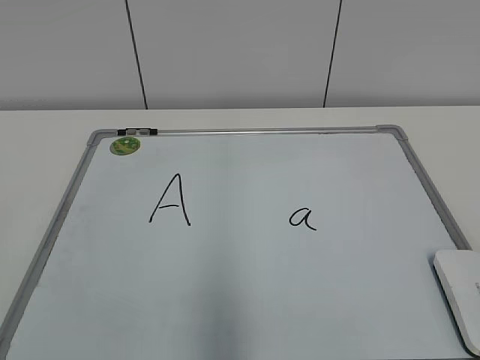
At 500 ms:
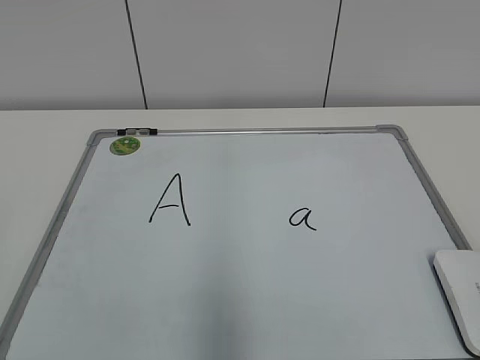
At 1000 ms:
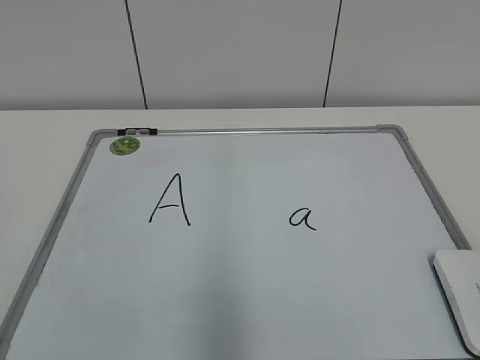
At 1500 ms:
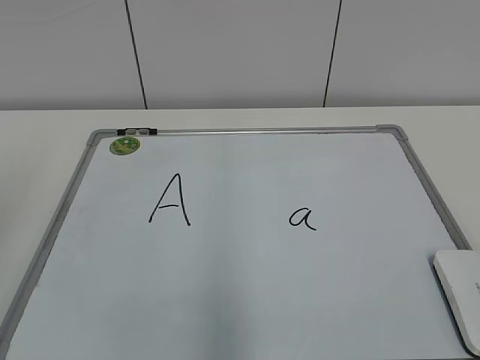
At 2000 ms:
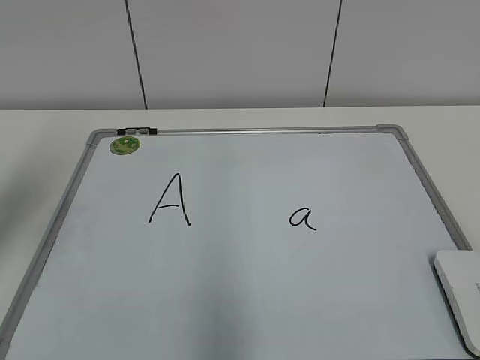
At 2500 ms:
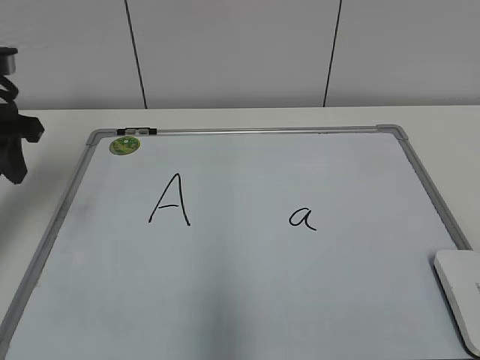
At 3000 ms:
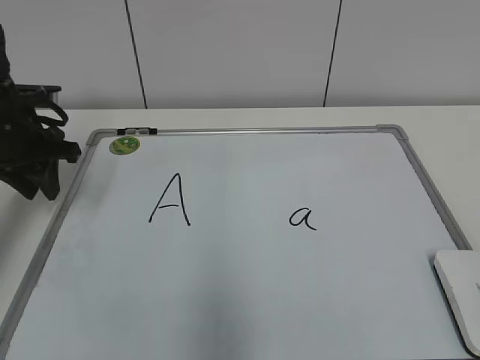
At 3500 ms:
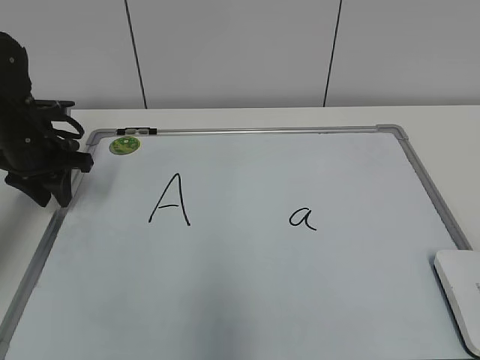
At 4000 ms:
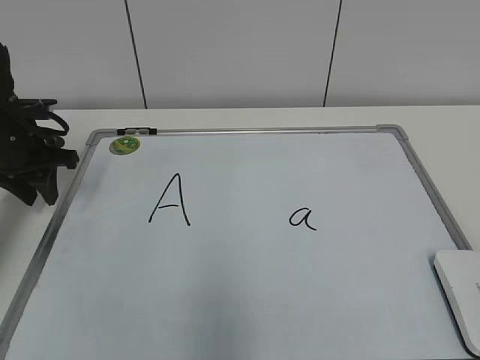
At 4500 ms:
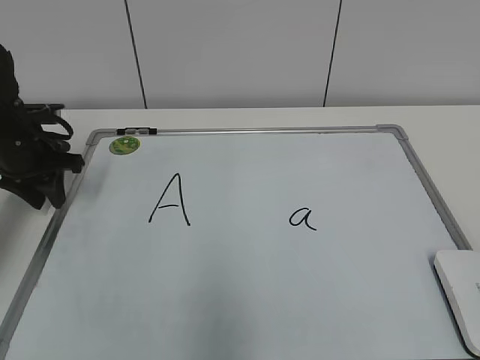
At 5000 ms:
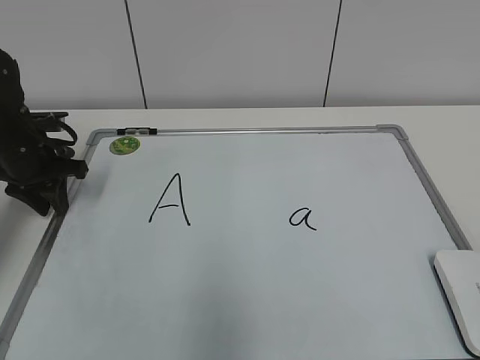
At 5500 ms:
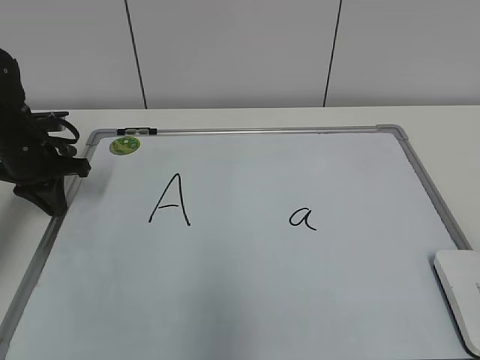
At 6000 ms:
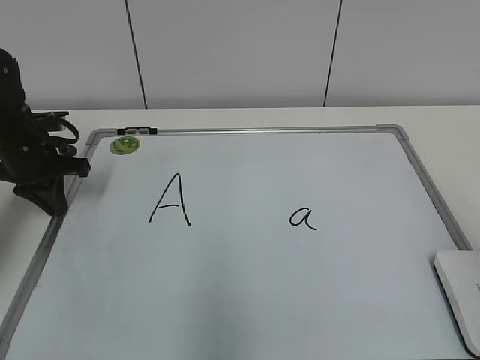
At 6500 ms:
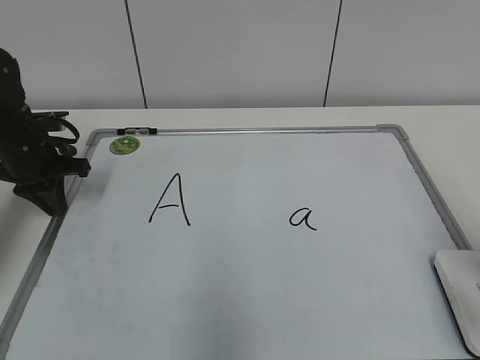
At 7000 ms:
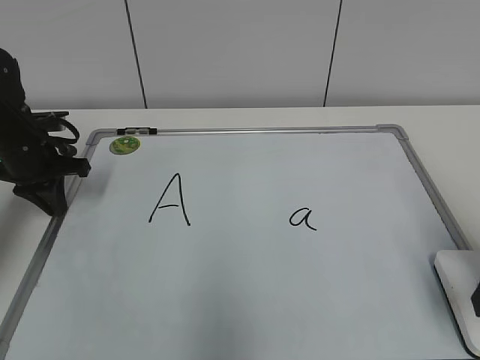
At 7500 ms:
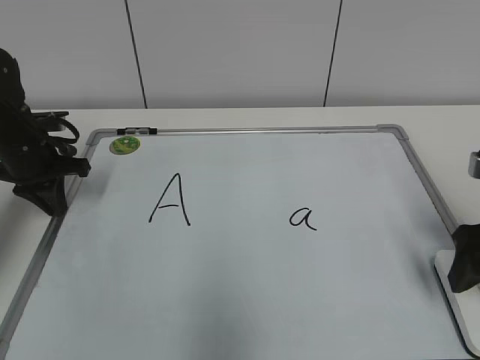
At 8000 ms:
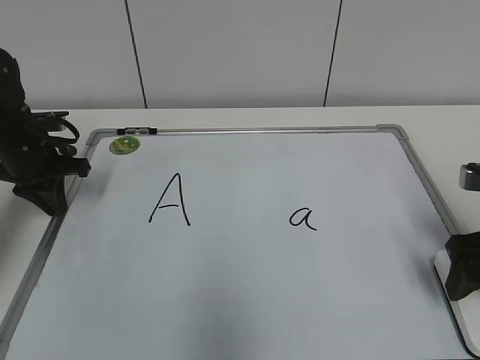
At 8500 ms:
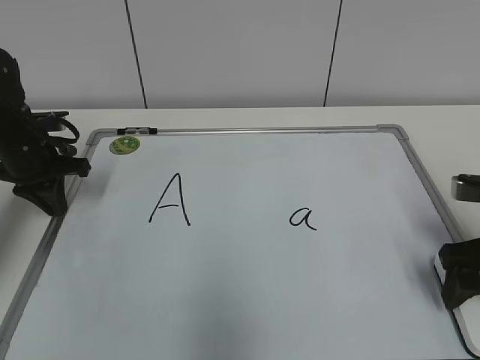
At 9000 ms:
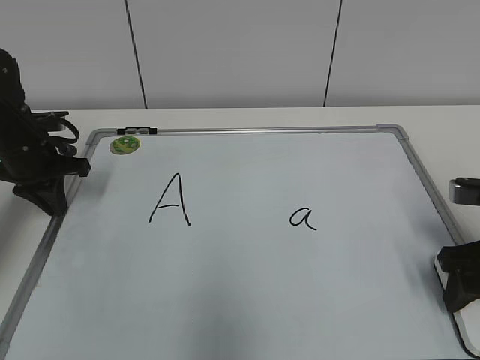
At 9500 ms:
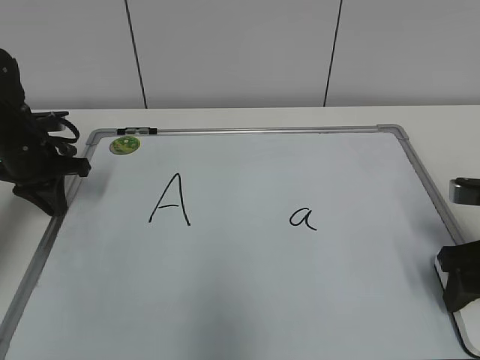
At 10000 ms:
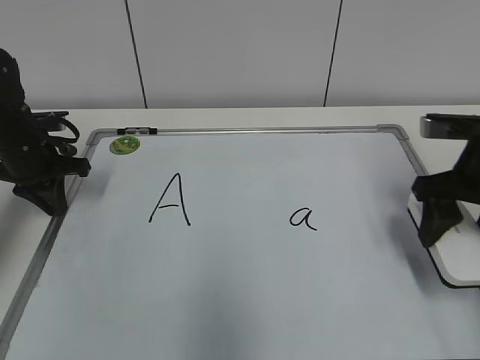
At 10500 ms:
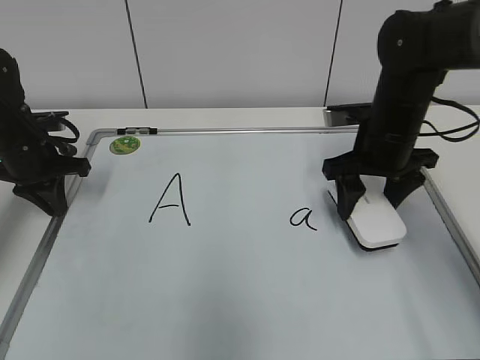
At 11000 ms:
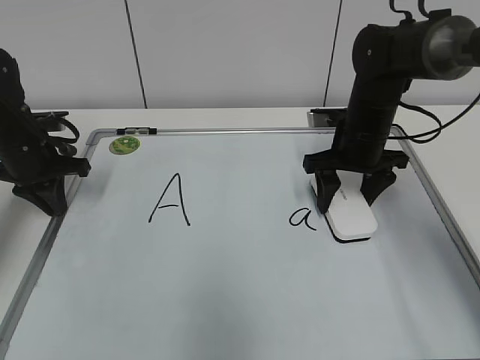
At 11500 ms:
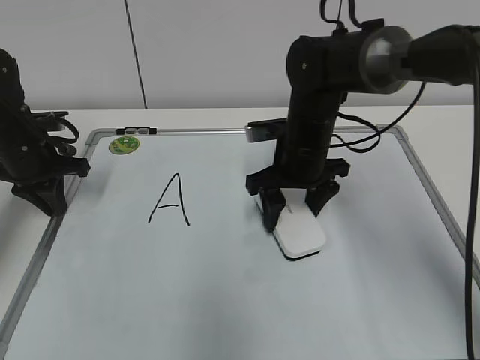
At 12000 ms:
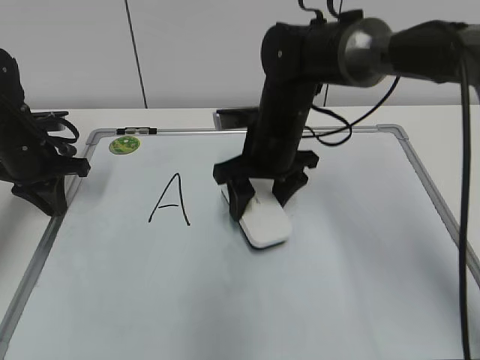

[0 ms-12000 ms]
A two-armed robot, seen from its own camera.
Task of the whole recording: pick up the eraser on the blackboard and erase the letter "a".
Step, 0 ms to 5000 ms: Hold the drawing board steady with your left hand.
Step, 5500 ms to 9000 ms: Grab the eraser with your right hand.
Step, 10000 ms to 11500 ms: Erase the letter a with your right hand.
2000 ms to 4000 ms: The left gripper goes roughly 20 cm downward and forward.
4000 ms to 6000 ms: The left gripper closes up.
6000 ms to 8000 ms: The right gripper heads forward and downward, covering roughly 20 cm, and opens up.
8000 ms to 10000 ms: The right gripper shifts about 5 cm forward, and closes.
10000 ms to 12000 ms: The right gripper goes approximately 20 cm to the left and forward.

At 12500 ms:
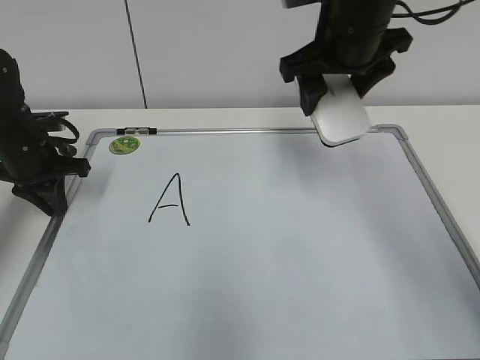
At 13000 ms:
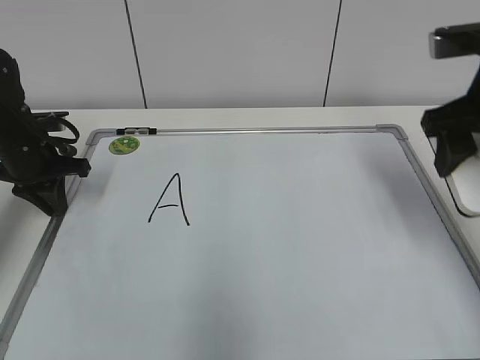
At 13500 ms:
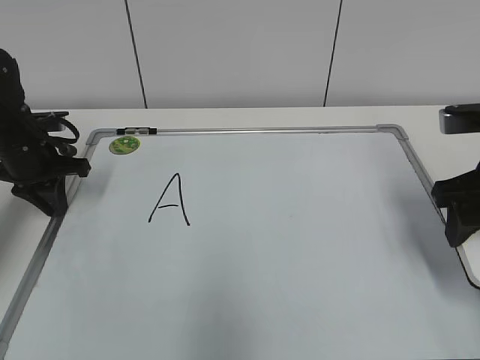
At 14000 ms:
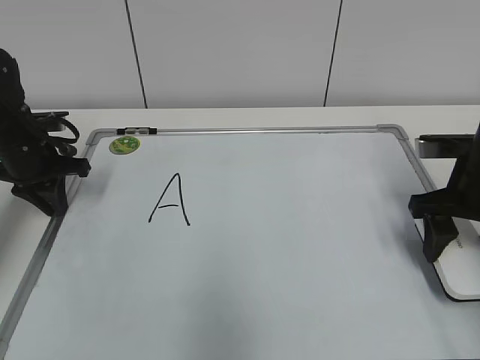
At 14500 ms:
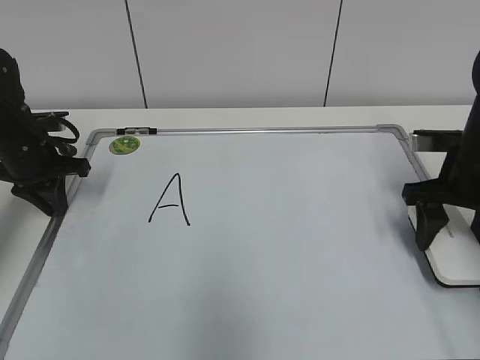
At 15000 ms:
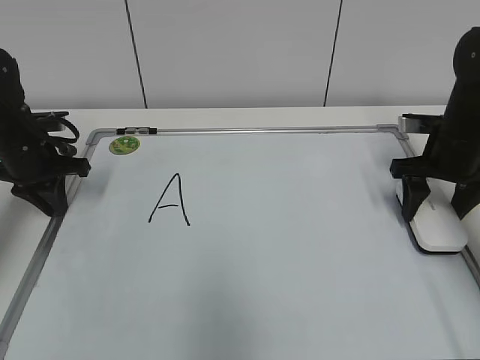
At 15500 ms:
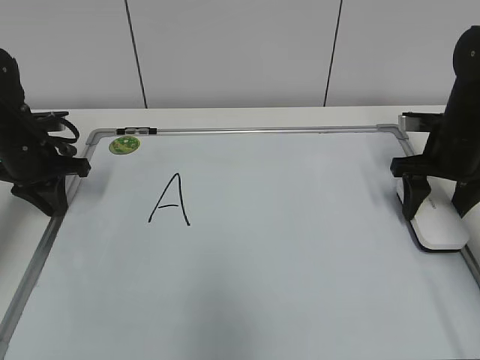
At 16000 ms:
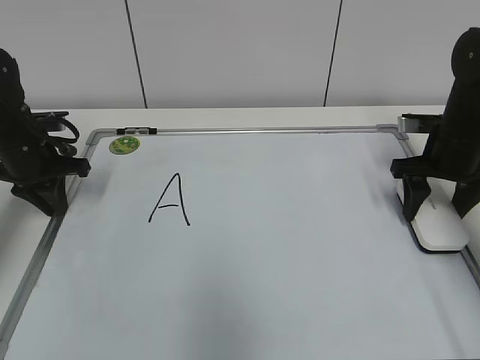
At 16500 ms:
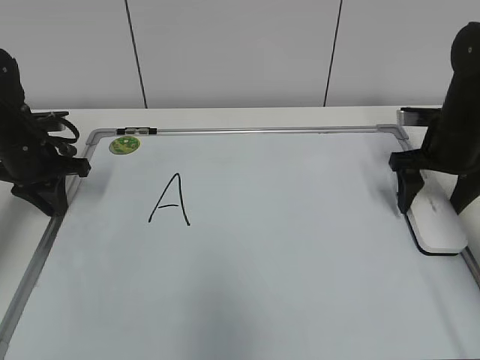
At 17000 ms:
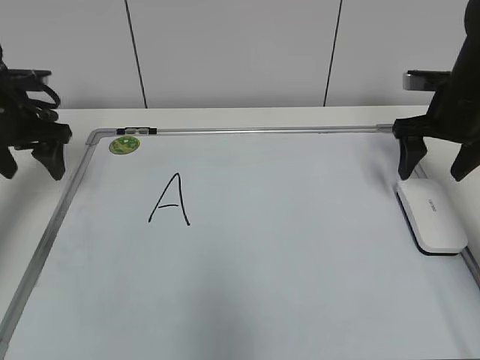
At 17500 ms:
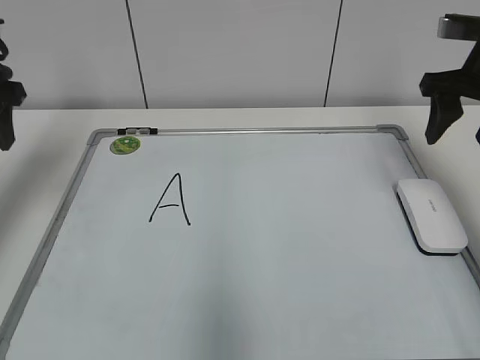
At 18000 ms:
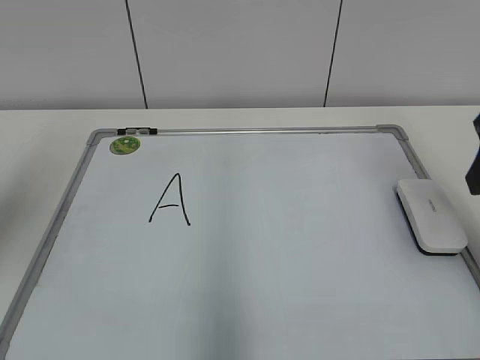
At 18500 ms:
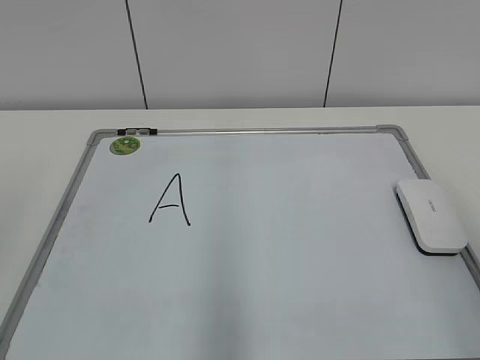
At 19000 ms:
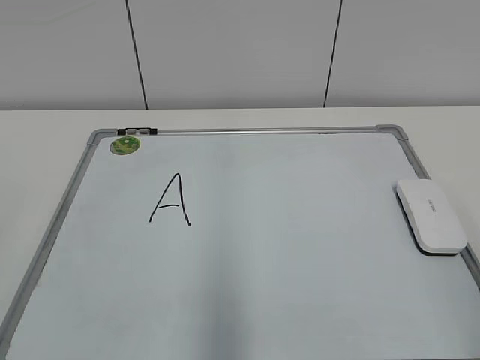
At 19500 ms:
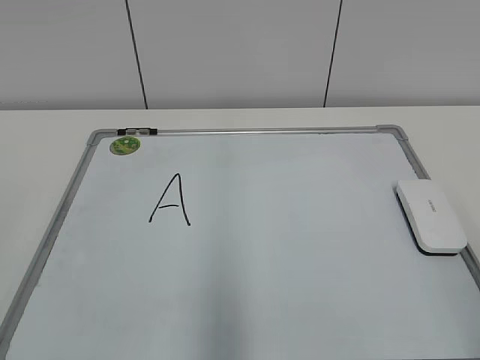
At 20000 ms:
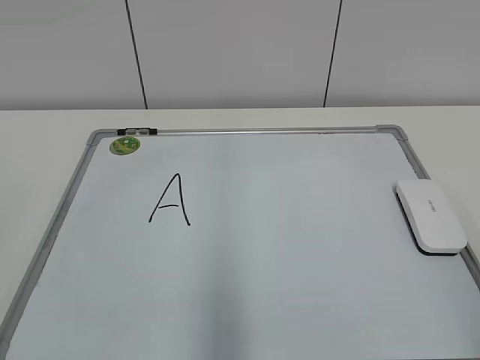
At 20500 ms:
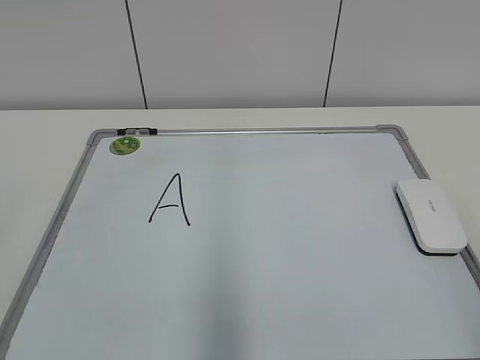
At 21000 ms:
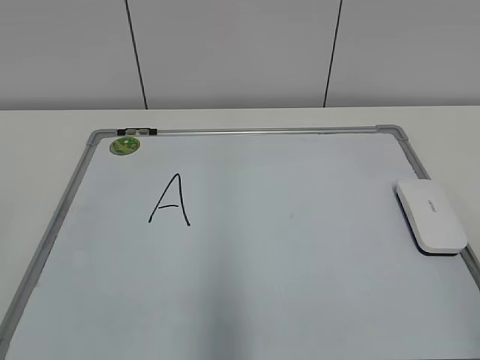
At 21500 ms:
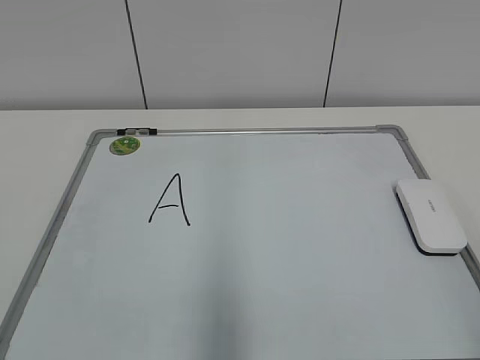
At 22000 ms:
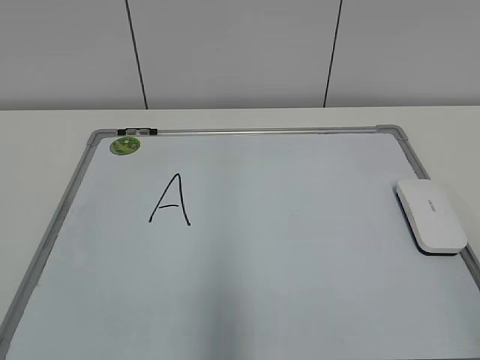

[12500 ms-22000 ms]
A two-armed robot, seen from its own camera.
Task of the whole recording: pick up the eraser on the blackboard and erase the letter "a".
Step, 12500 ms to 16000 ms: Put down the eraser with your right hand.
12500 ms to 14500 ms: The right gripper is displaced to the right and downward by roughly 20 cm.
14500 ms to 16500 ms: The right gripper shifts some 5 cm forward, and opens up.
16500 ms to 18000 ms: The right gripper shifts about 20 cm backward and upward, and closes up. Meanwhile the left gripper moves upward and backward, about 25 cm, and opens up.
18000 ms to 20000 ms: The two grippers go about 20 cm backward.

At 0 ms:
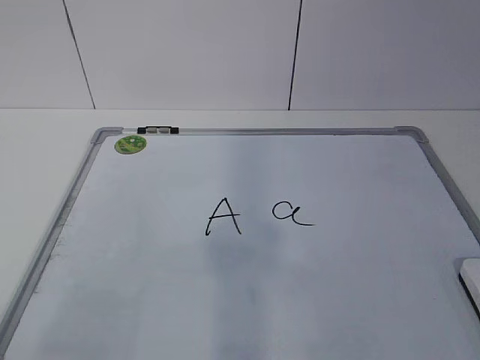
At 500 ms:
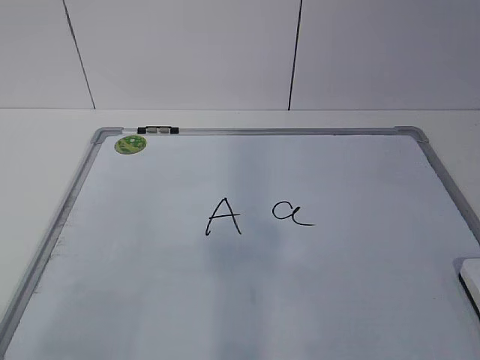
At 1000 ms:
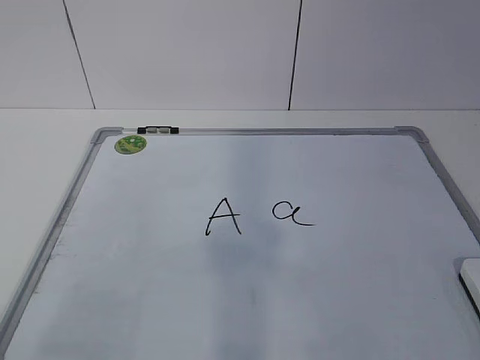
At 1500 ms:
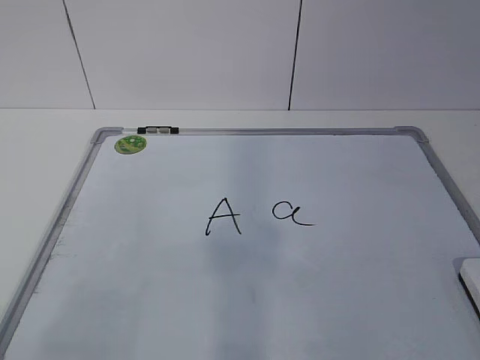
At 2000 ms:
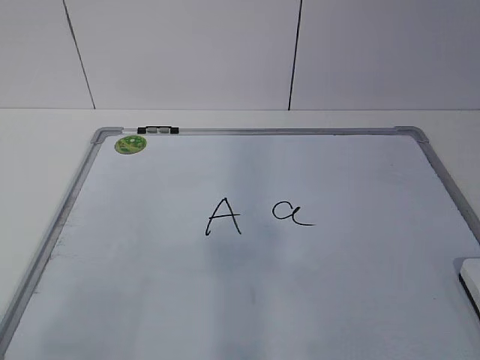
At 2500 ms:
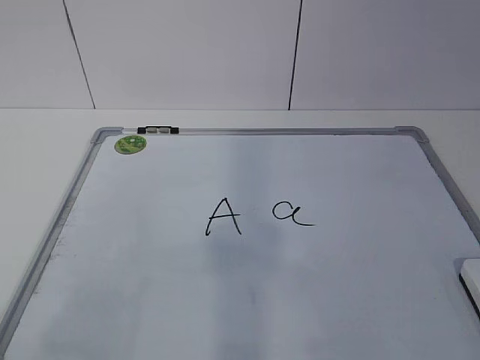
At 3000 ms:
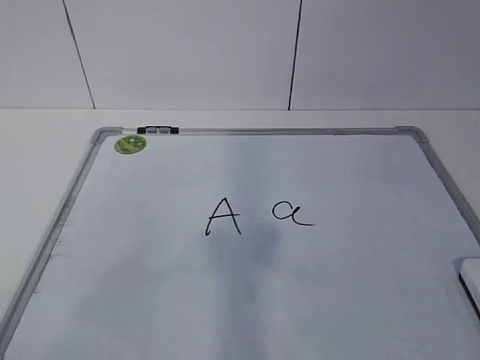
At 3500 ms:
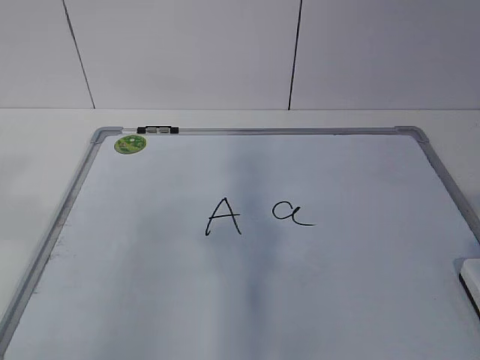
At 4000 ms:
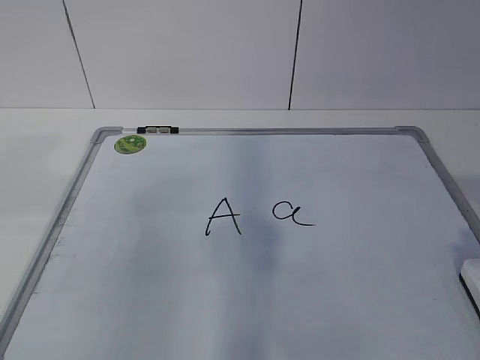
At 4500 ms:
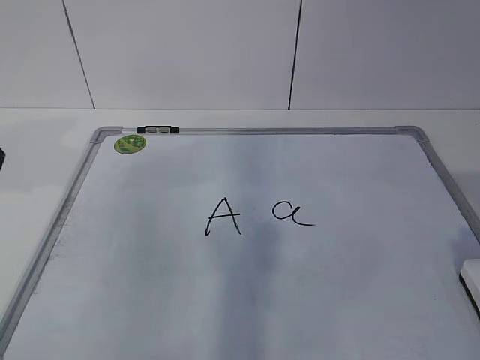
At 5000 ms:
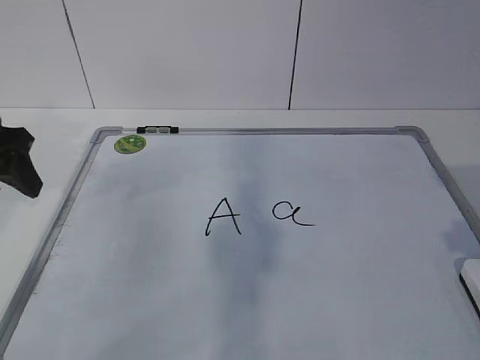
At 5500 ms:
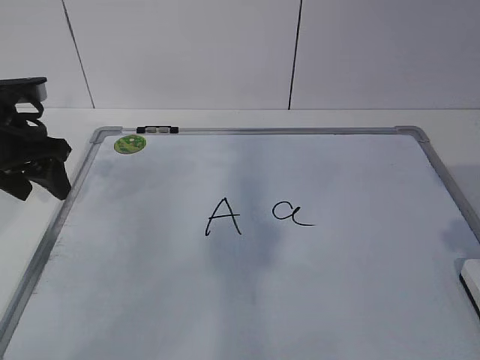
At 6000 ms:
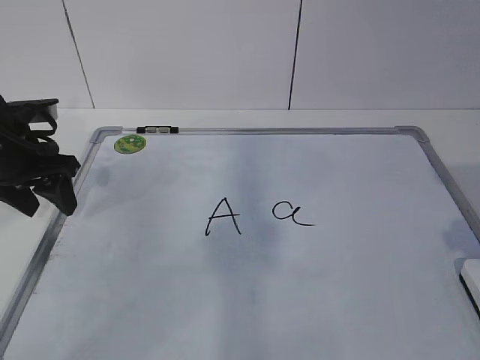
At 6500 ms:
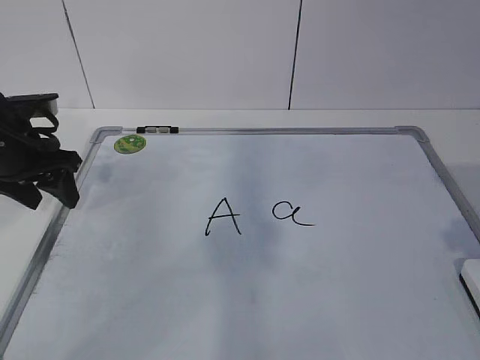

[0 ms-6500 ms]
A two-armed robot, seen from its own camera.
Task of the whole recording: pick up the eraser on the blackboard and erase the letter "a".
4500 ms to 6500 ms: The left gripper moves downward and forward, approximately 15 cm.
